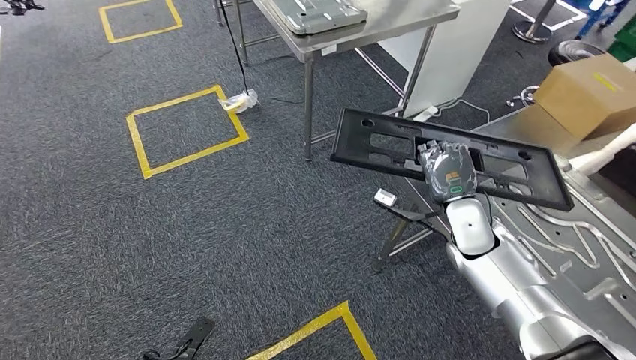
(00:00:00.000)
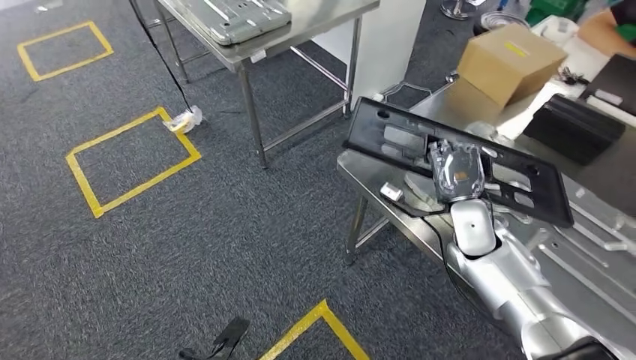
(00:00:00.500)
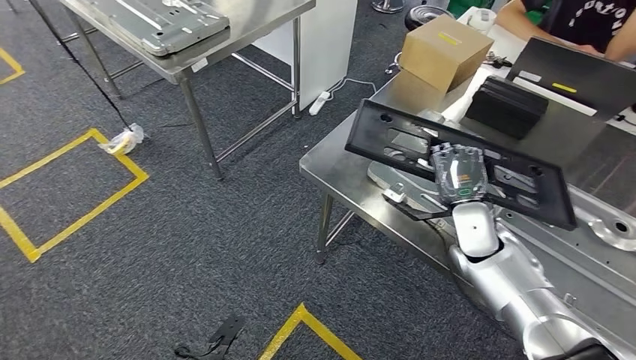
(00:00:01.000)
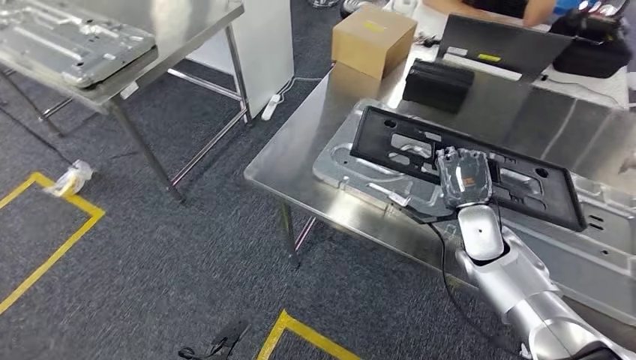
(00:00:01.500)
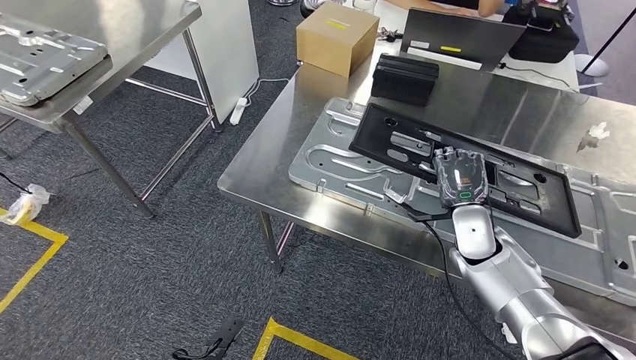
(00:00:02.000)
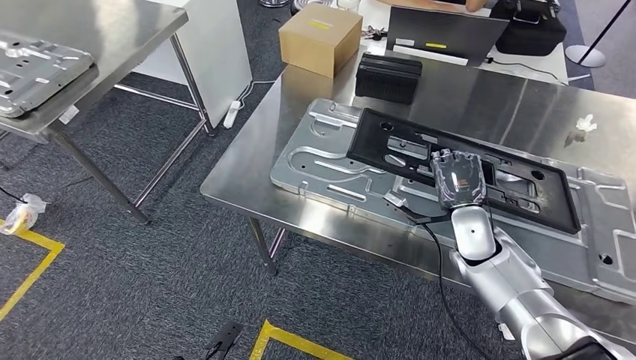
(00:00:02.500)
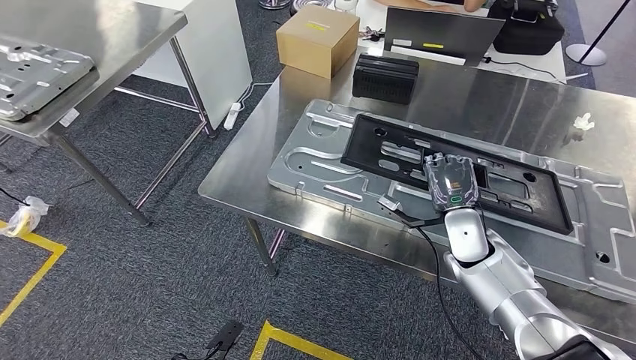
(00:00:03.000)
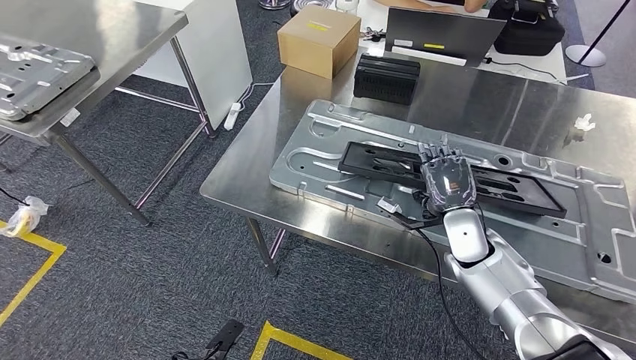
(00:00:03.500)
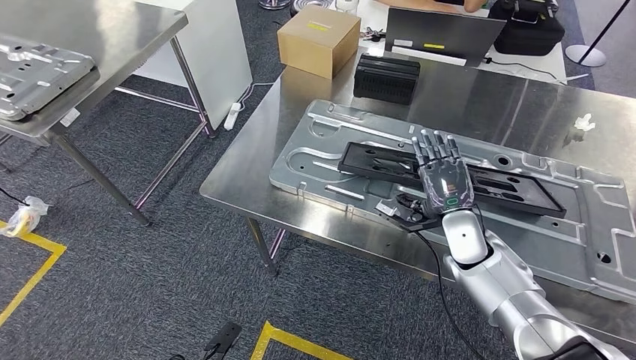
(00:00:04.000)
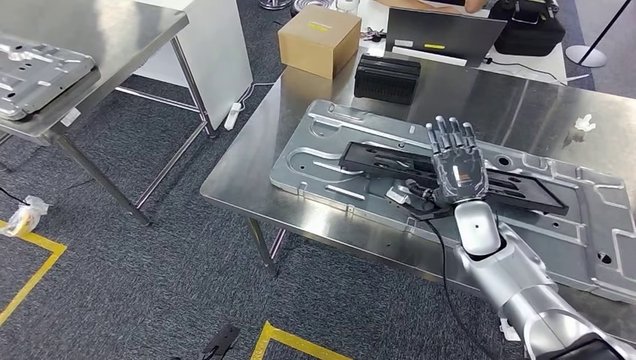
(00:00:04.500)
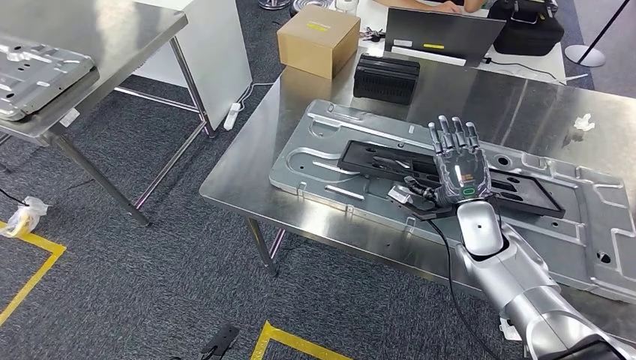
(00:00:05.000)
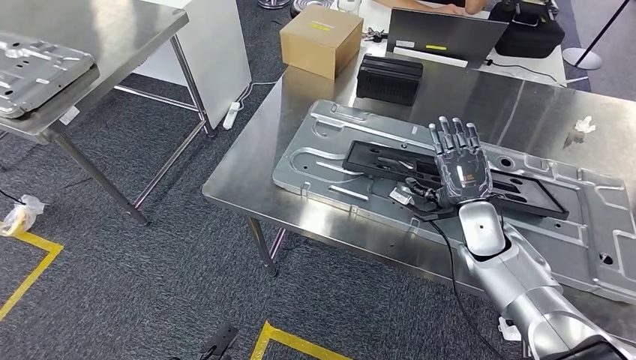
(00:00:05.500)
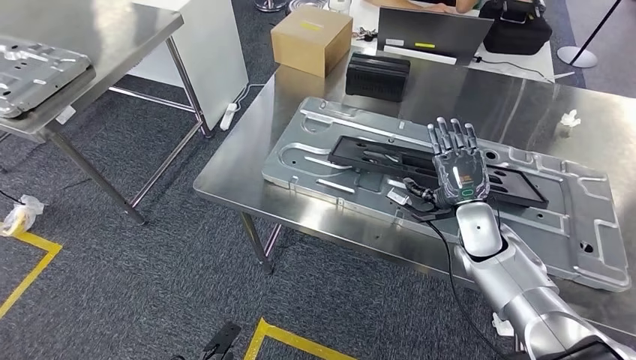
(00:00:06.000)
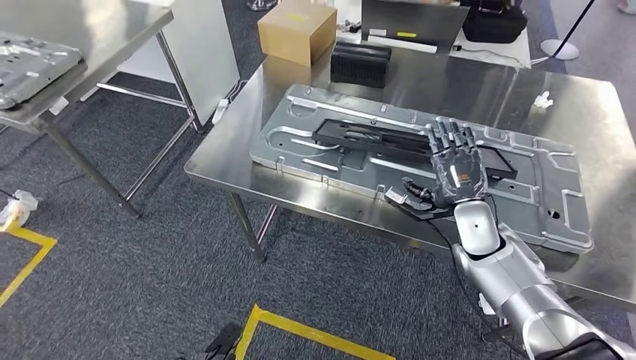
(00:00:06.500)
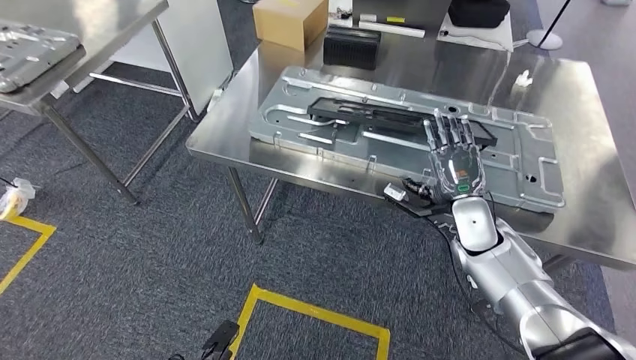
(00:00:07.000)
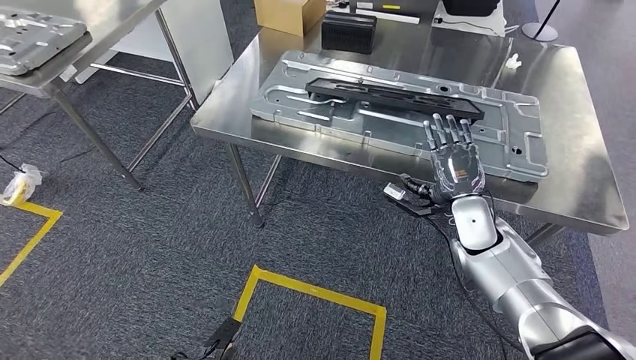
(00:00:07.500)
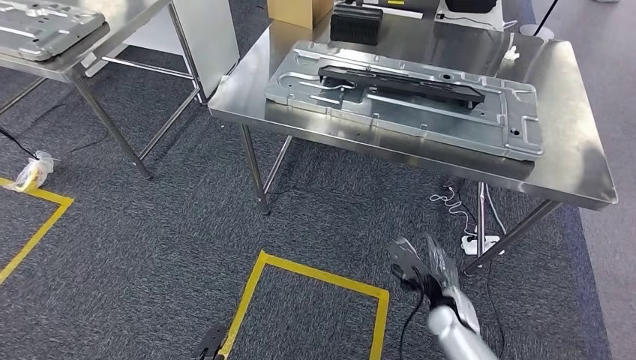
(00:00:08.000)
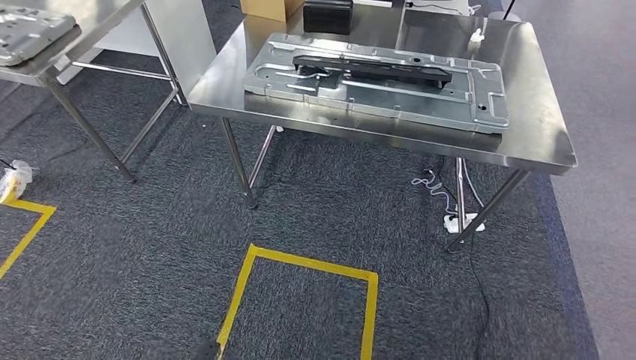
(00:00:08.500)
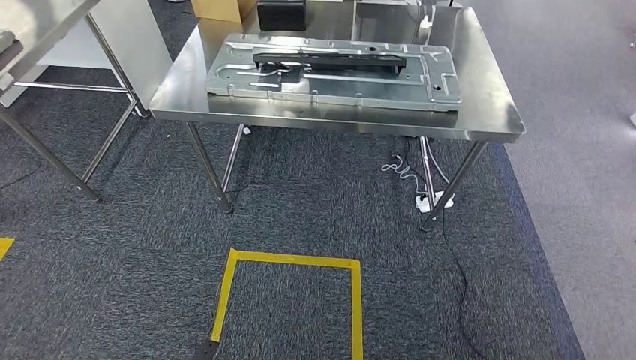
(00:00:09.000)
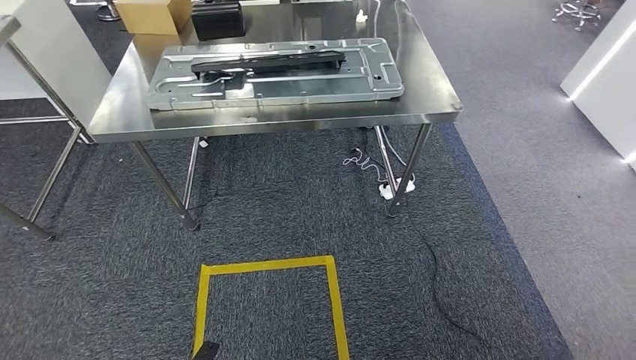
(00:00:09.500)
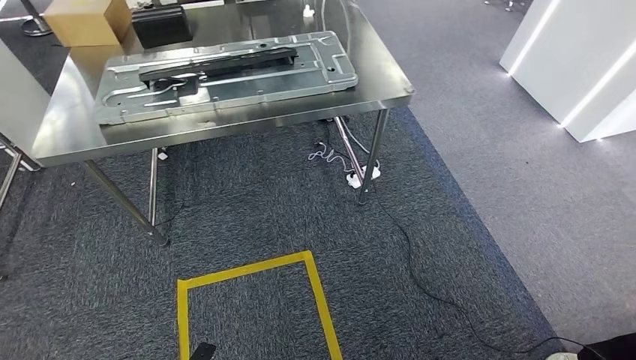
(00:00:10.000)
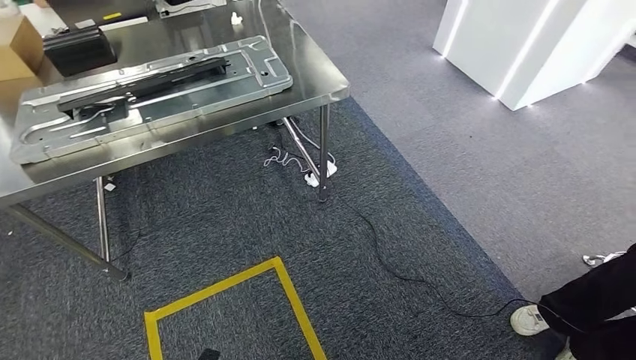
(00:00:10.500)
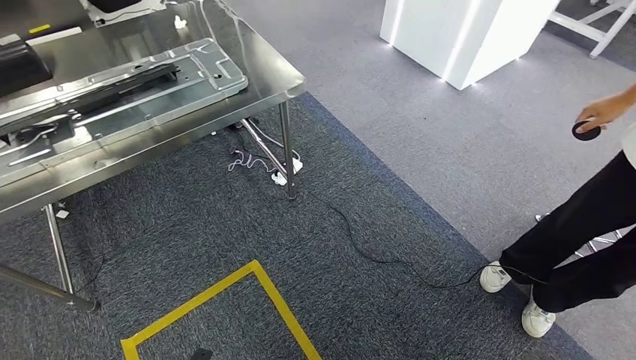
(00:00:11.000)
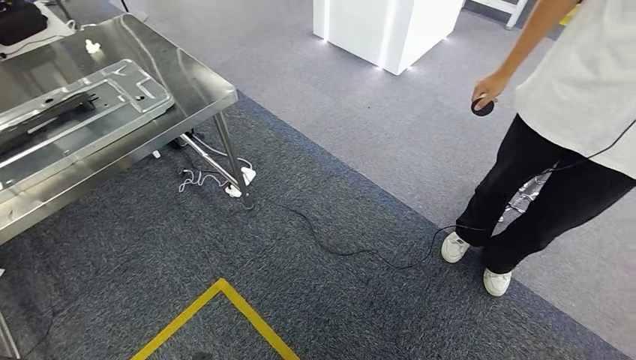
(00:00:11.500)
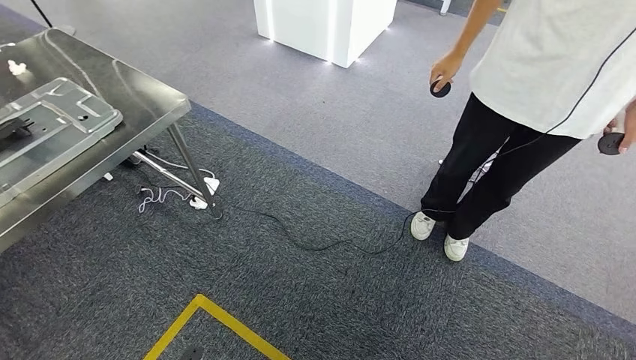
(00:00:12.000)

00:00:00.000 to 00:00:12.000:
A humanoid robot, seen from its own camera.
Step, 00:00:01.000 to 00:00:06.000: Insert the large material into the corresponding slot on the workbench.

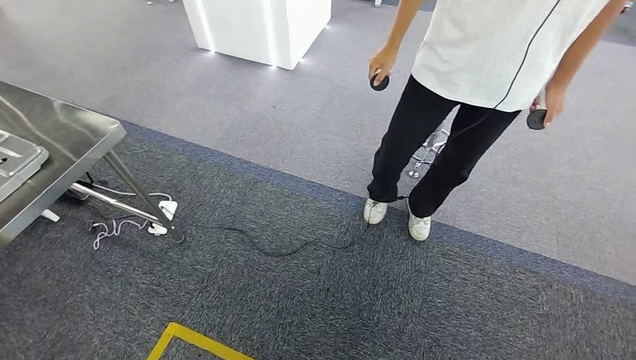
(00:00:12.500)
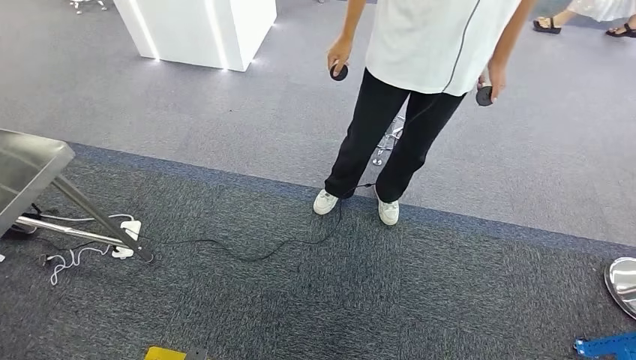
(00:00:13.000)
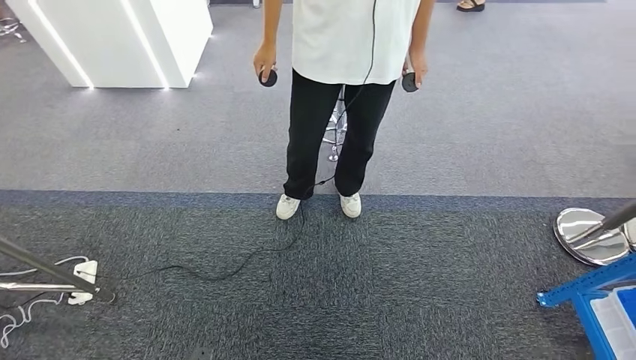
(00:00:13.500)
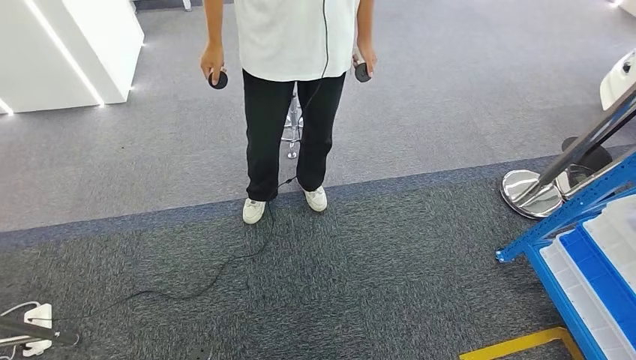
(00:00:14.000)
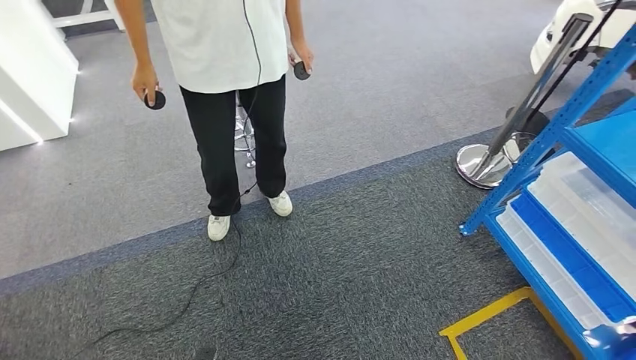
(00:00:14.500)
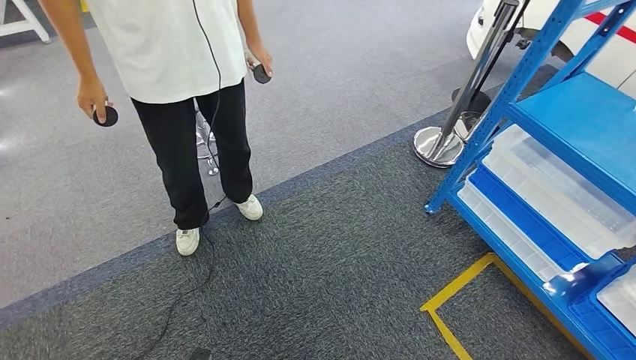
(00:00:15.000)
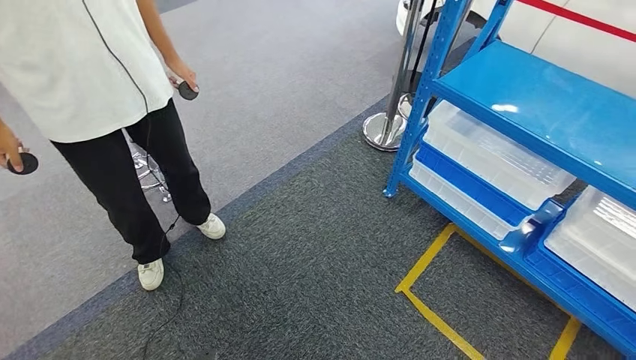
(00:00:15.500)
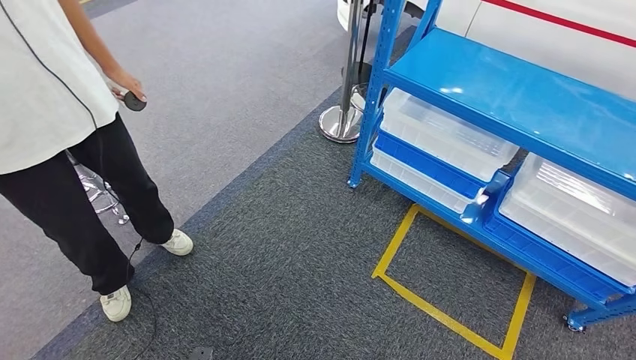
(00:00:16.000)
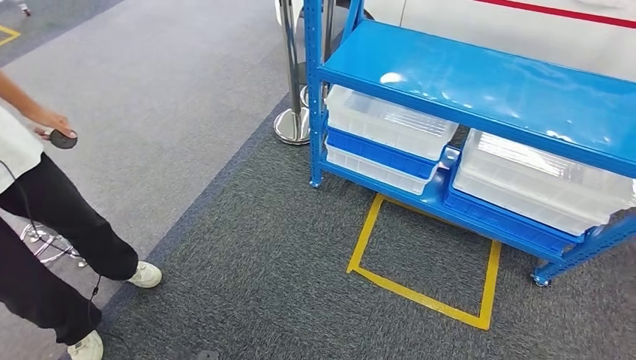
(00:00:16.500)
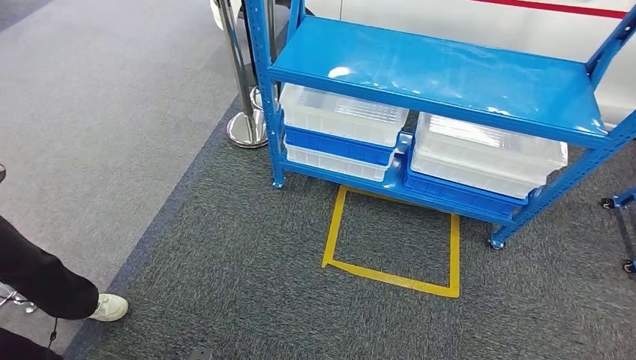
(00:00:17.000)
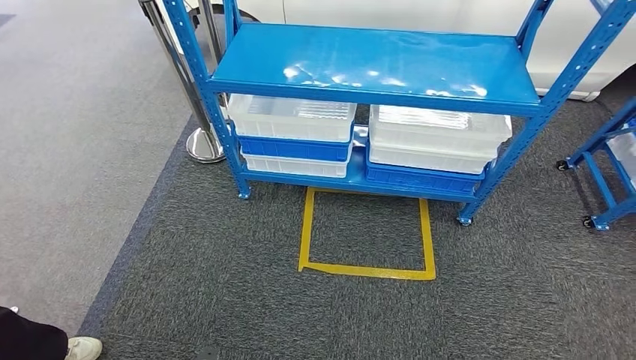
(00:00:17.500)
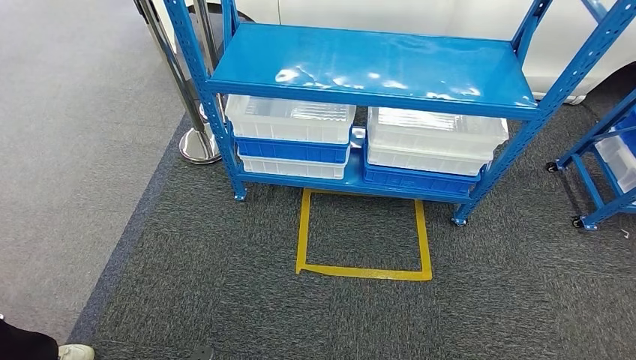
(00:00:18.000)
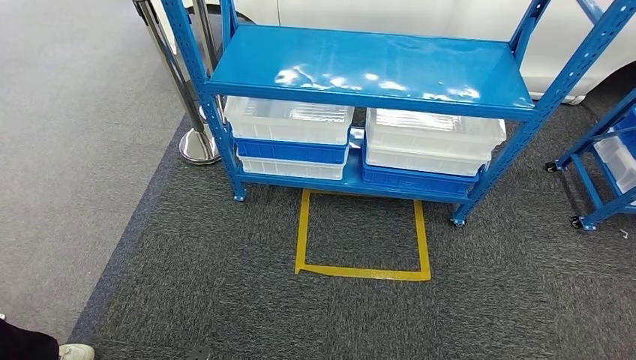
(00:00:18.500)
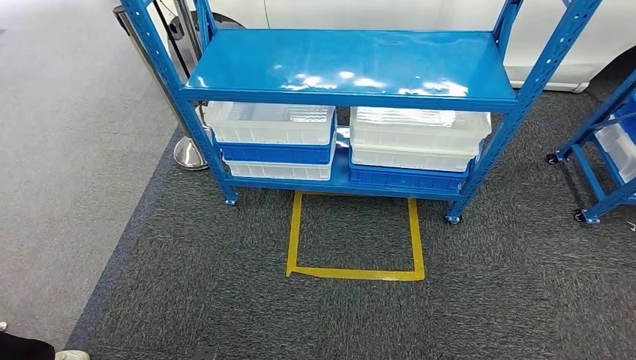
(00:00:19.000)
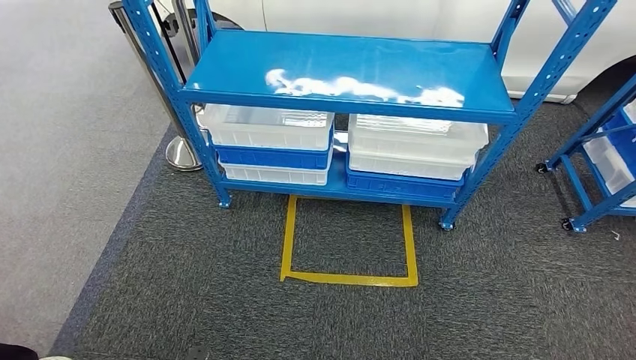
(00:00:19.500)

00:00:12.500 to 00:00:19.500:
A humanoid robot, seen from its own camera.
Step, 00:00:12.500 to 00:00:19.500: Return to the initial position at the shelf.
